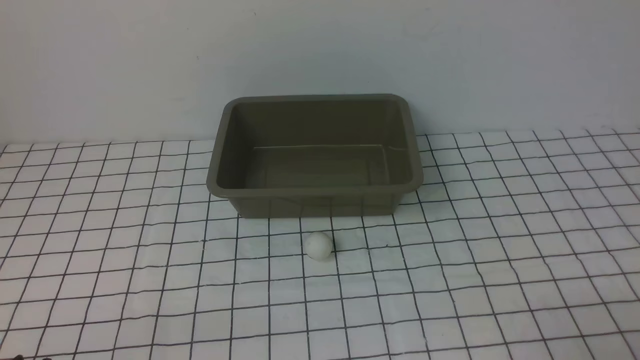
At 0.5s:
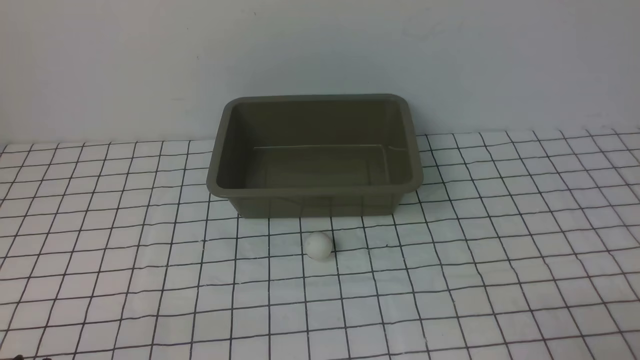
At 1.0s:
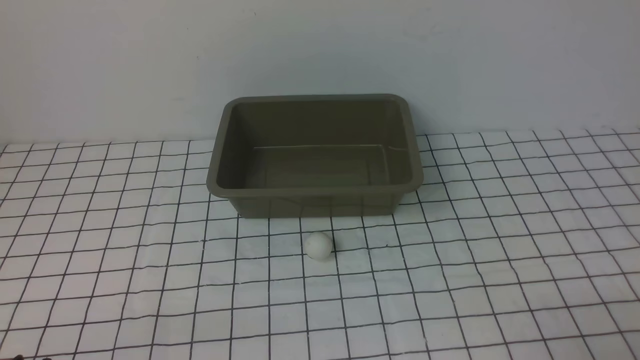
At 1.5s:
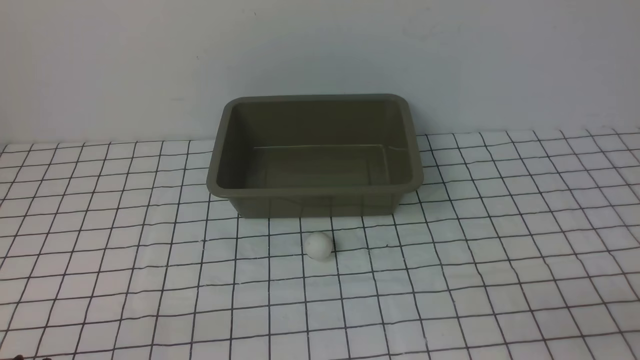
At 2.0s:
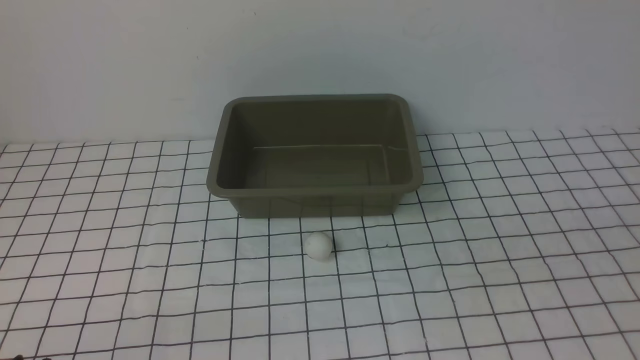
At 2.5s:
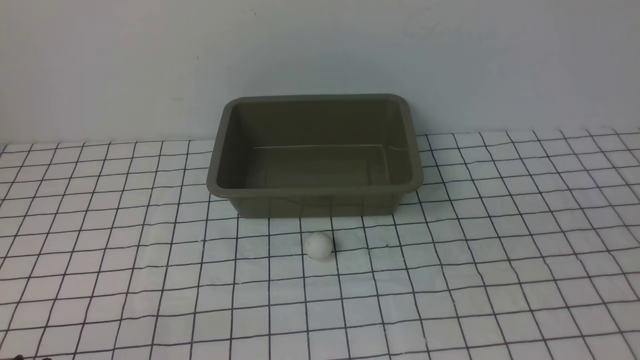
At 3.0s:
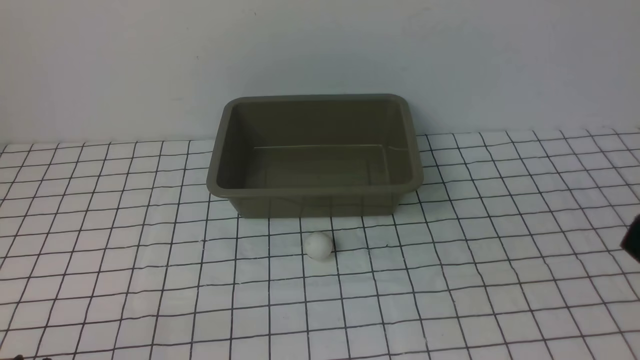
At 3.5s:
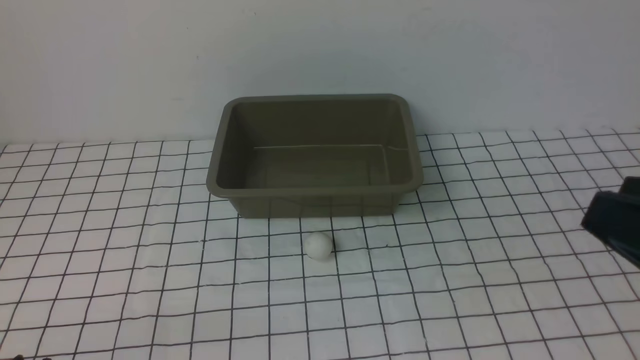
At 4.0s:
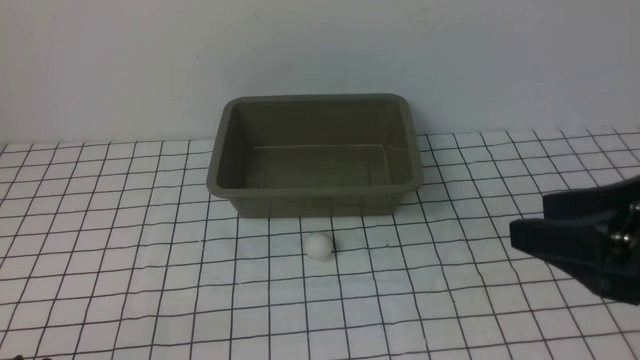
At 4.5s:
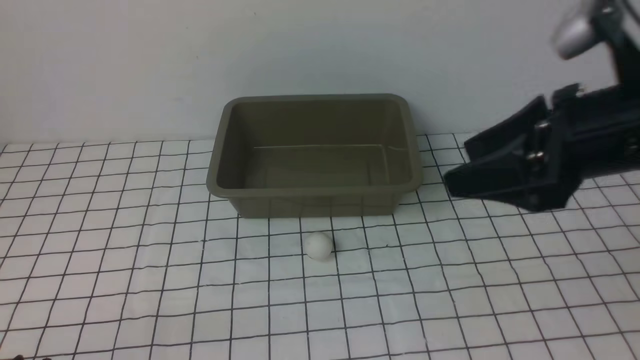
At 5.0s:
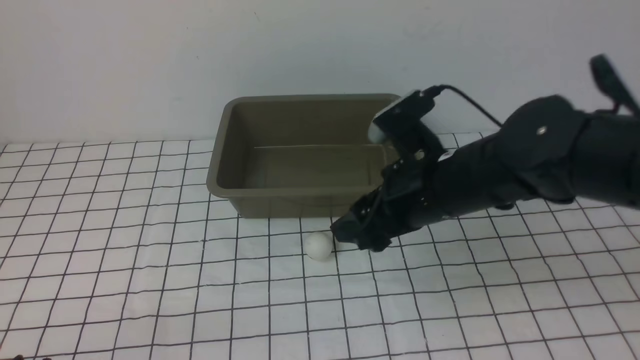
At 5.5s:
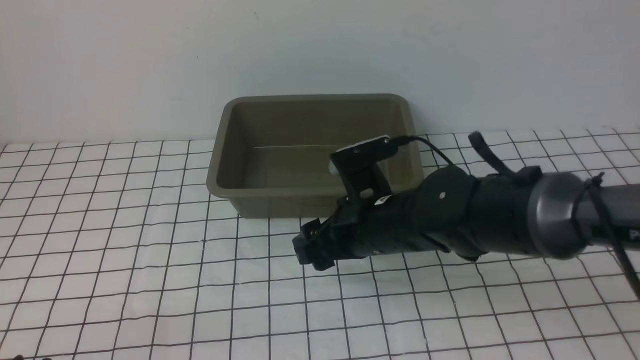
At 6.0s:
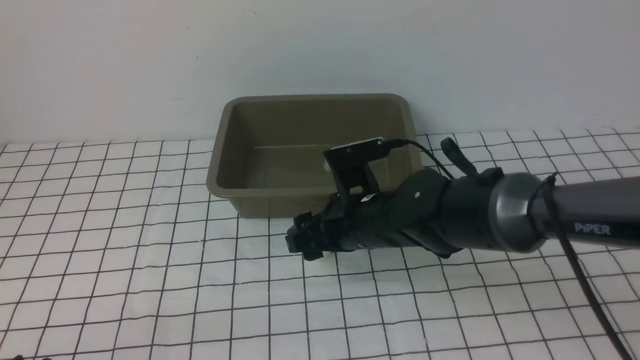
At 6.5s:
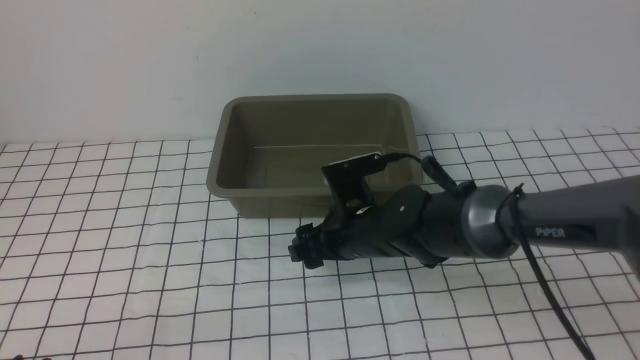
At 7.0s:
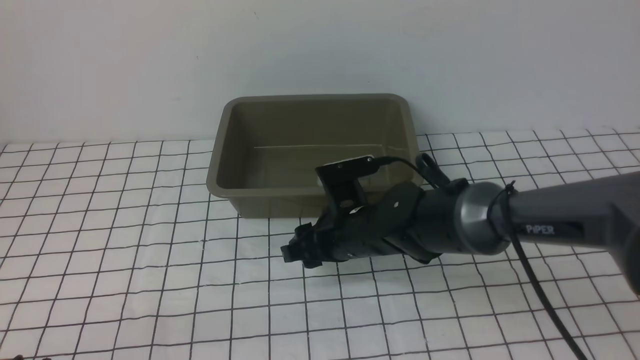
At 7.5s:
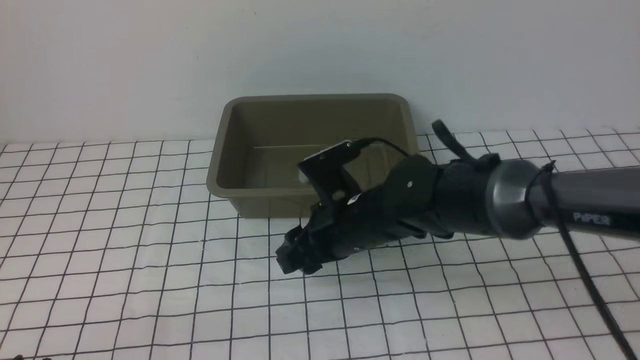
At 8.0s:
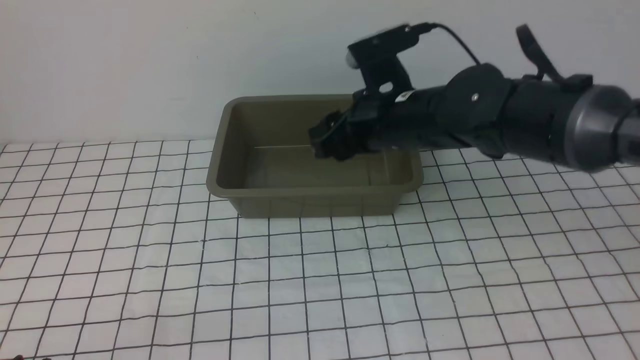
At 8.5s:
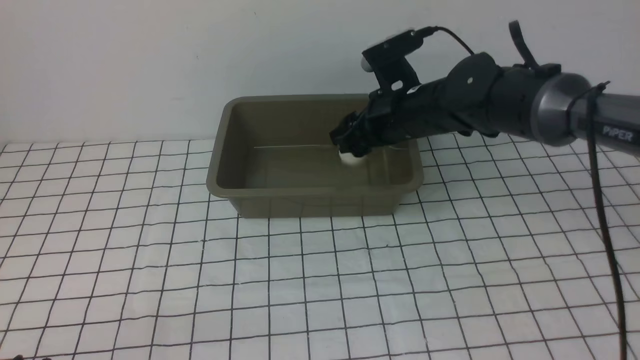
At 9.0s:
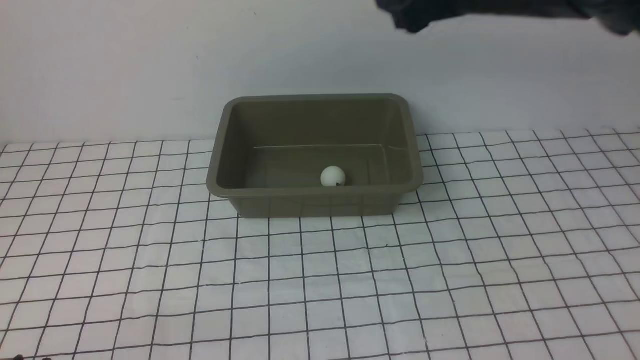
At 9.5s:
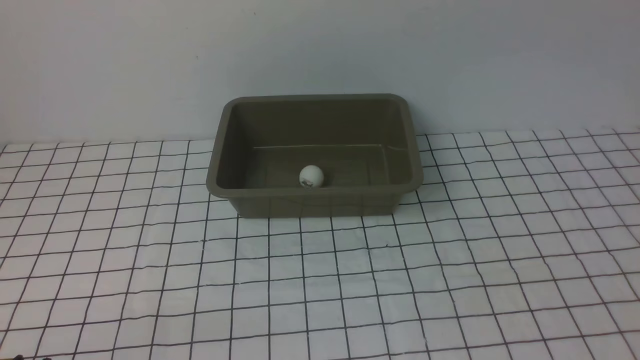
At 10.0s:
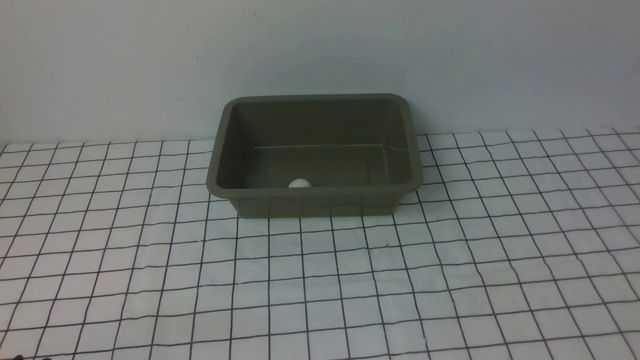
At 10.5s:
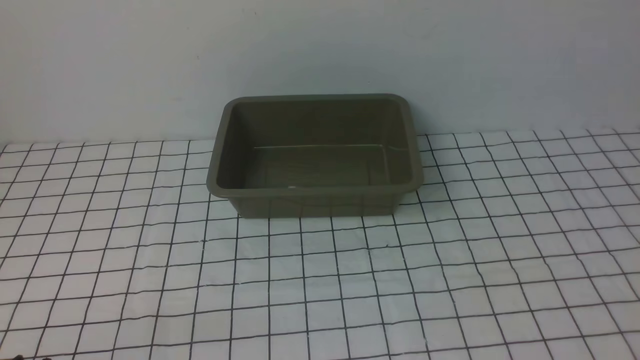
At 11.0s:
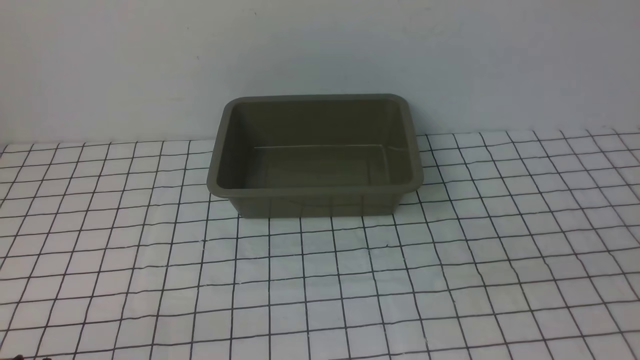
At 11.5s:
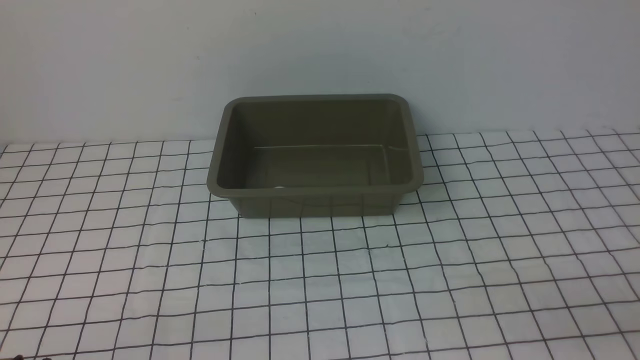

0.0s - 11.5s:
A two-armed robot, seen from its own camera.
Step, 0.0s - 7.5s: use the right arm to clamp the table tennis ball closest to it.
Step, 8.0s - 8.5s: use the right arm to put the table tennis ball into the box.
2.0s - 4.0s: The right gripper moves forward, about 15 cm.
4.0s - 6.0s: The right gripper goes approximately 30 cm to the left, downward and forward.
6.0s - 7.5s: The right gripper closes its fingers.
7.5s - 9.5s: The right gripper is displaced upward and to the right by approximately 40 cm, and opens.

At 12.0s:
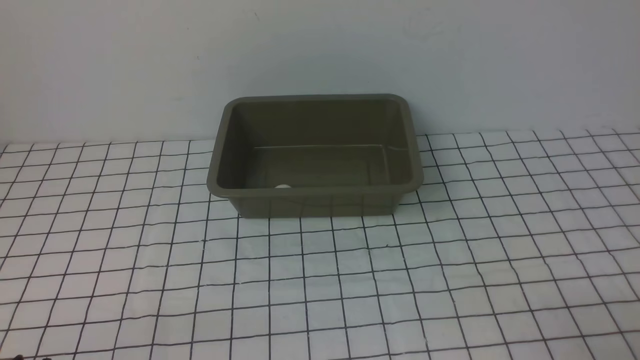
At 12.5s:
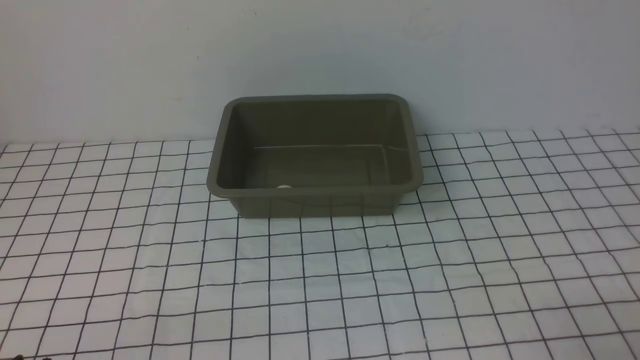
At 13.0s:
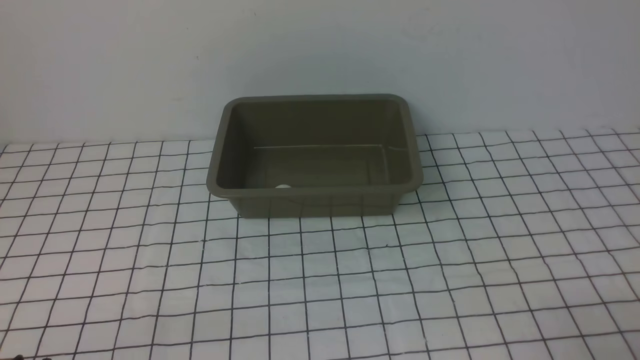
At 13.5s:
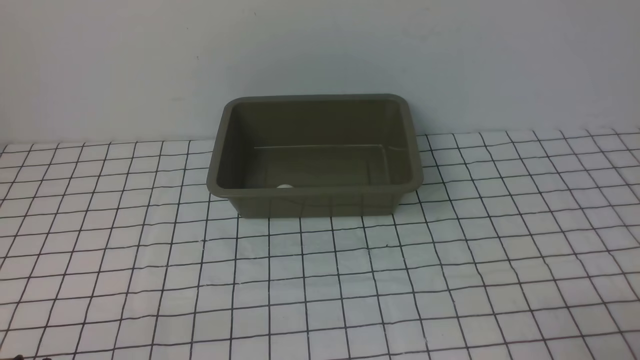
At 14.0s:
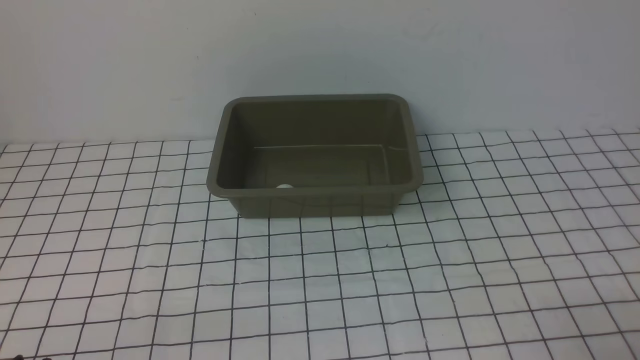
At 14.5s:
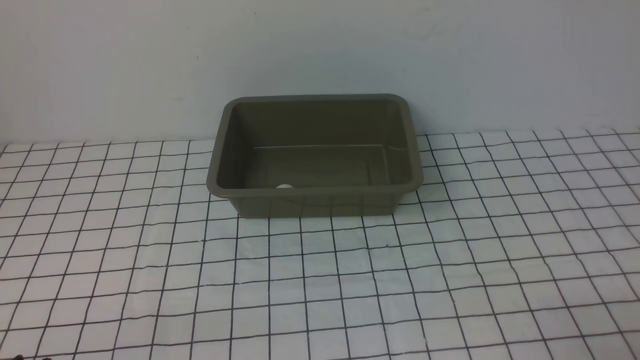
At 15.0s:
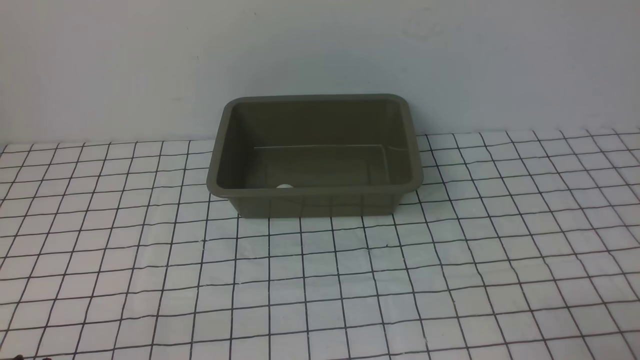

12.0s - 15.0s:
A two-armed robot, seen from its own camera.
12.0s - 15.0s: Both grippers stay put.

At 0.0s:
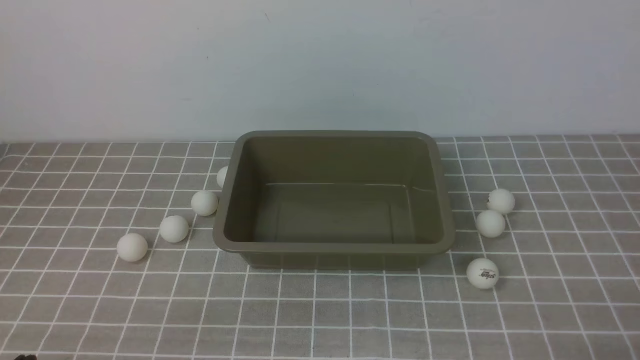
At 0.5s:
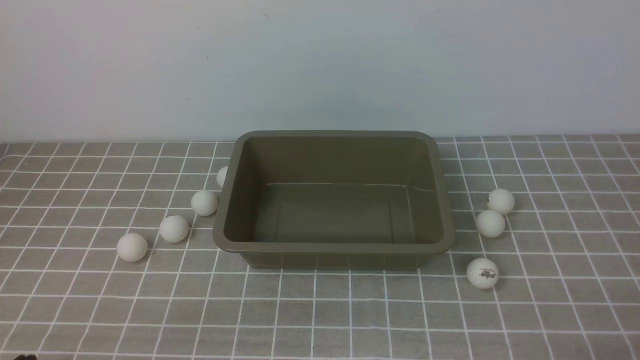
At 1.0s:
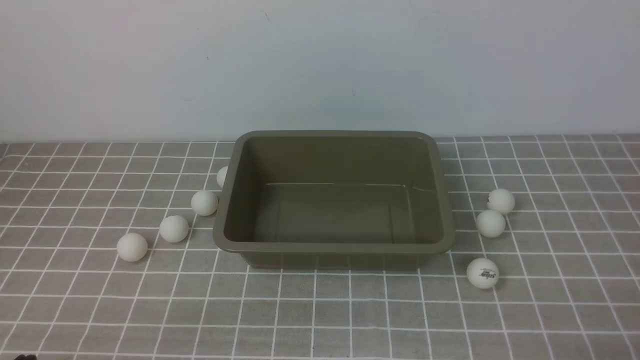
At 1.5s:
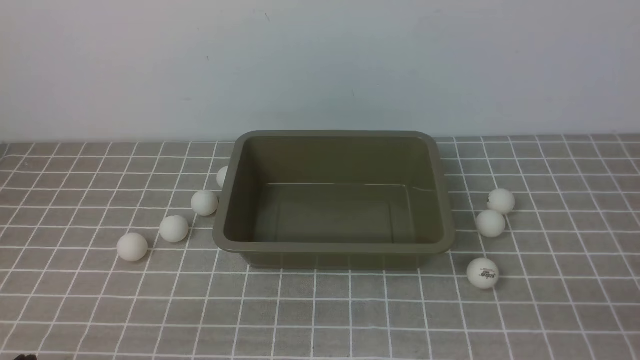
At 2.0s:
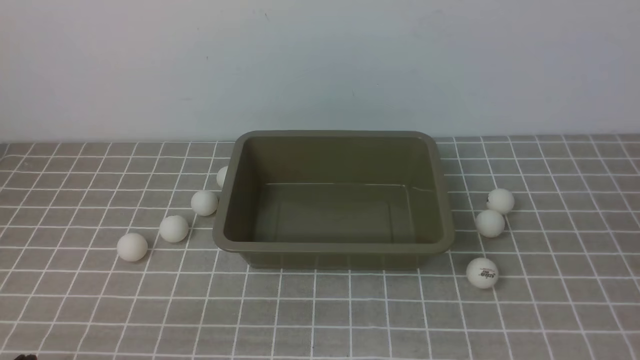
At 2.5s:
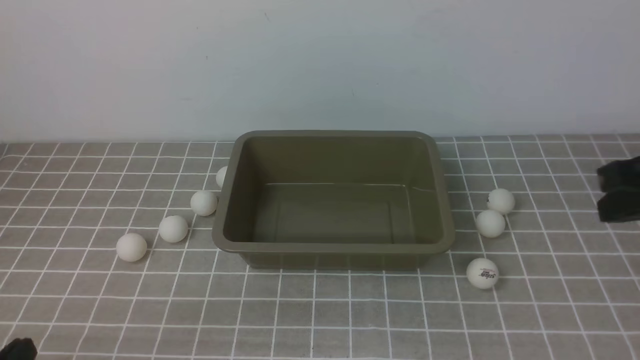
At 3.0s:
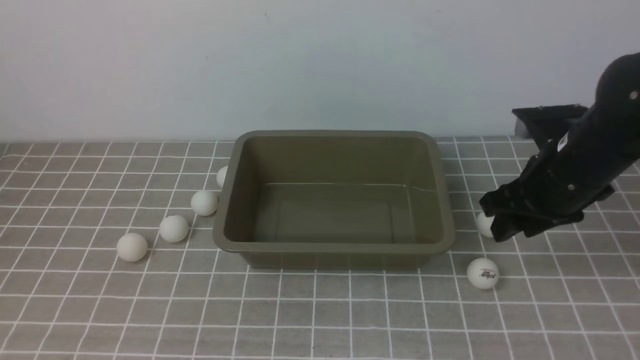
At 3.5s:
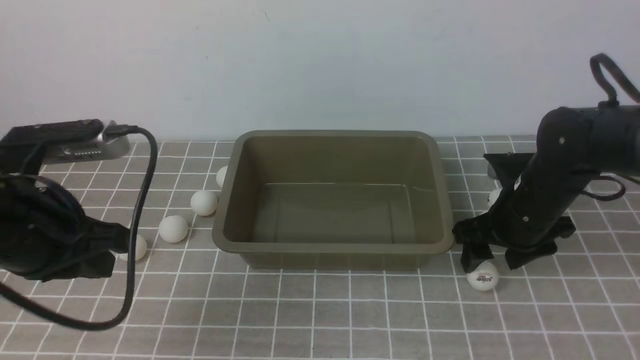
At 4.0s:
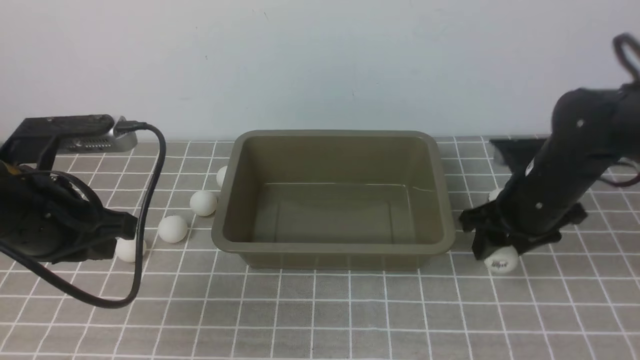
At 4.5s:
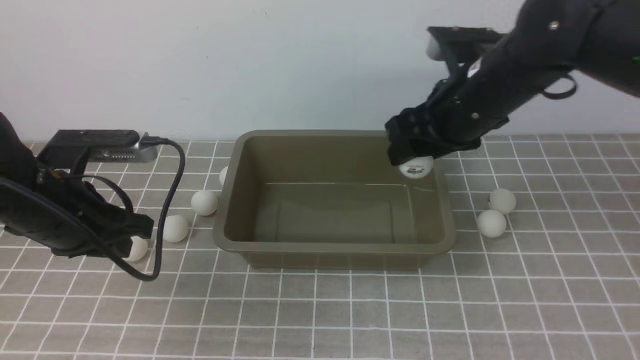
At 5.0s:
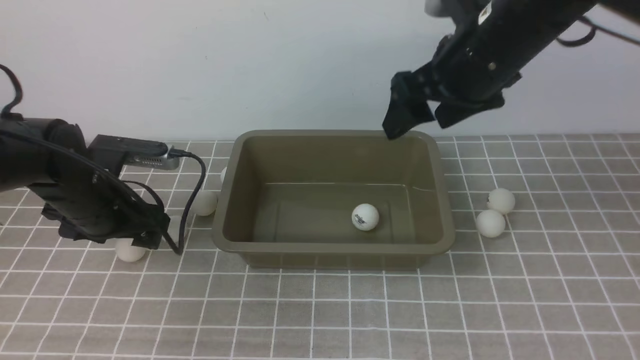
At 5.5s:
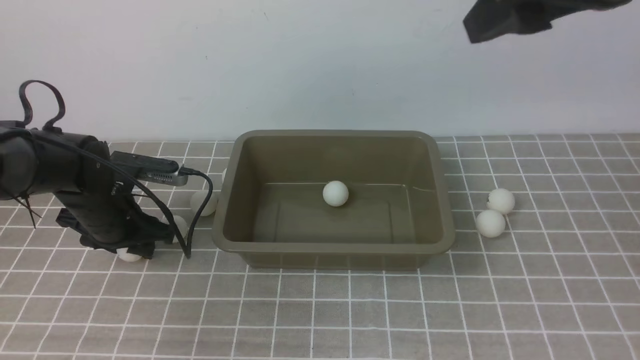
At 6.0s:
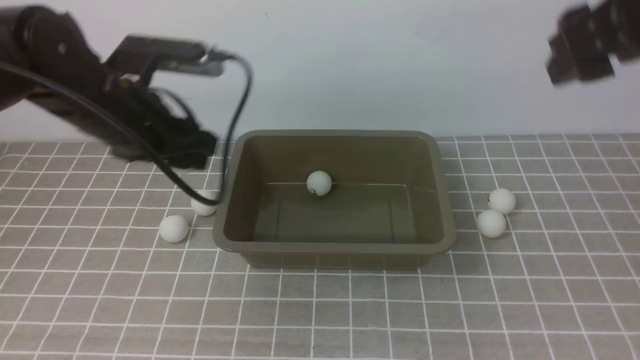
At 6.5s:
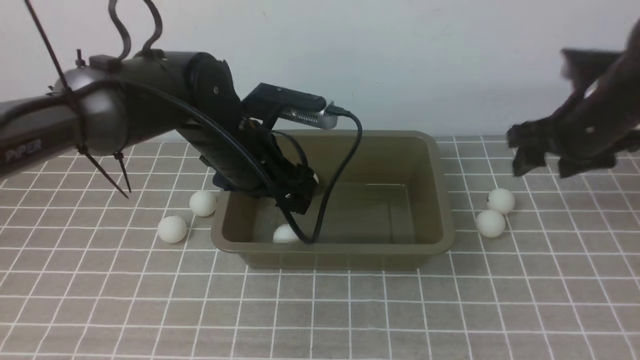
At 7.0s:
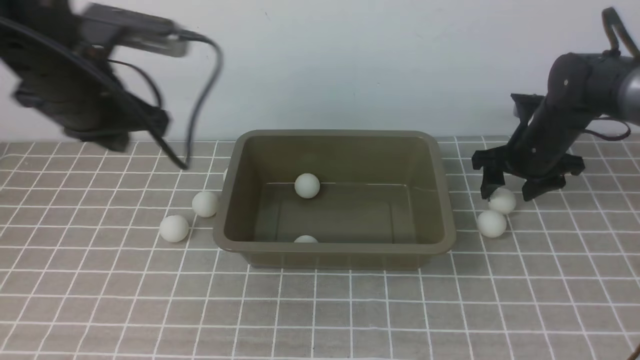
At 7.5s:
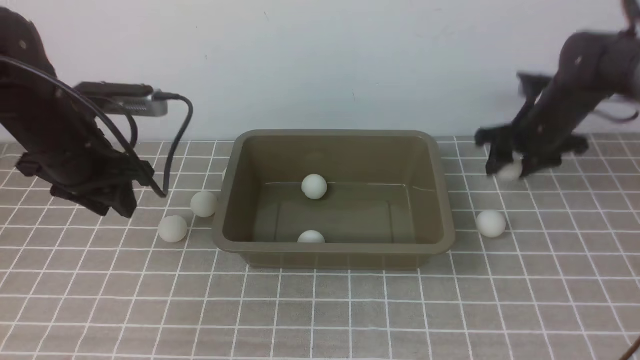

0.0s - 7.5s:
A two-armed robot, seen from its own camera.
Step, 0.0s - 4.0s: use the right arm to clamp the table tennis ball closest to it.
Step, 5.0s - 5.5s: use the left arm to clamp the table tennis ball closest to it.
Step, 6.0s - 6.5s: use the left arm to put the table tennis ball into the box.
Step, 7.0s - 7.5s: use the right arm to clamp the table tennis ball closest to it.
2.0s - 4.0s: The left gripper shifts some 20 cm forward and upward; the right gripper is displaced forward by some 25 cm, and opens up.
4.0s - 5.5s: The right gripper moves upward, about 25 cm, while the left gripper is displaced forward and downward by approximately 15 cm, and opens its fingers.
5.5s - 7.5s: The left gripper travels upward by approximately 10 cm, and closes, then reopens. Meanwhile the right gripper shifts approximately 30 cm downward and forward.
